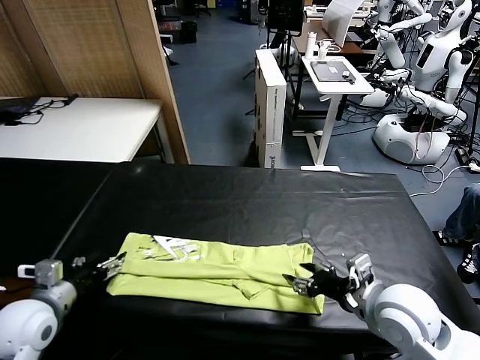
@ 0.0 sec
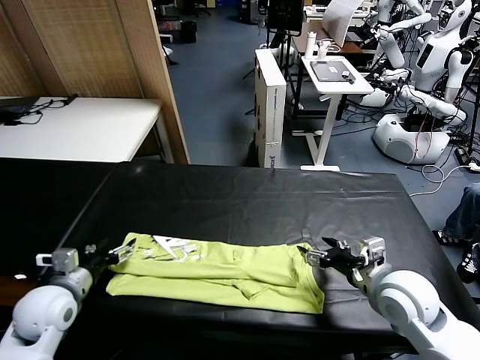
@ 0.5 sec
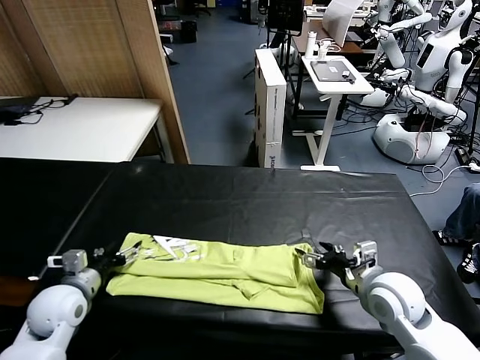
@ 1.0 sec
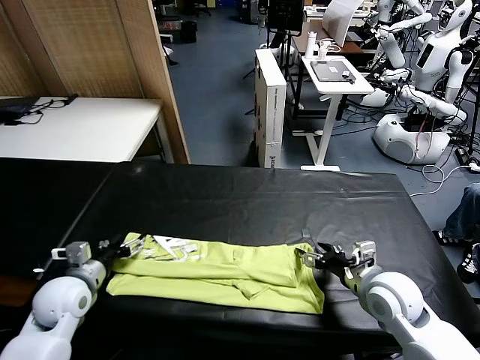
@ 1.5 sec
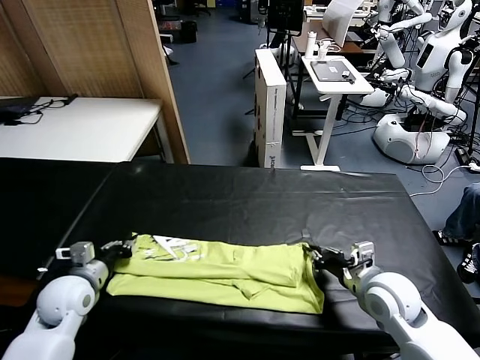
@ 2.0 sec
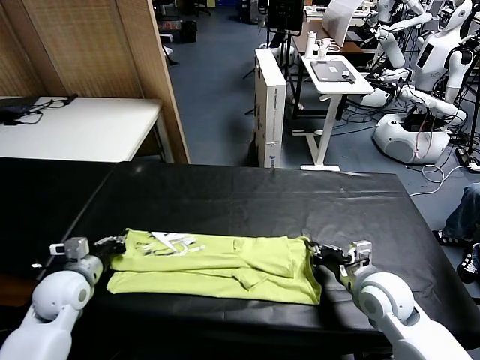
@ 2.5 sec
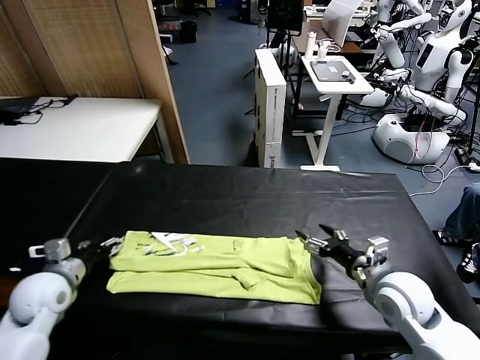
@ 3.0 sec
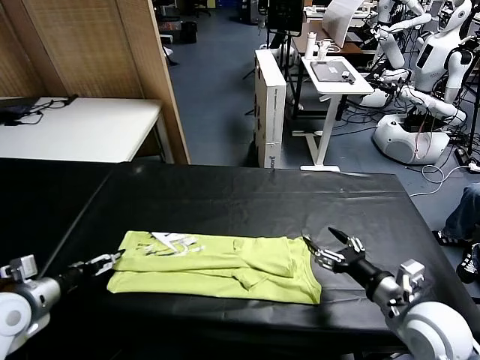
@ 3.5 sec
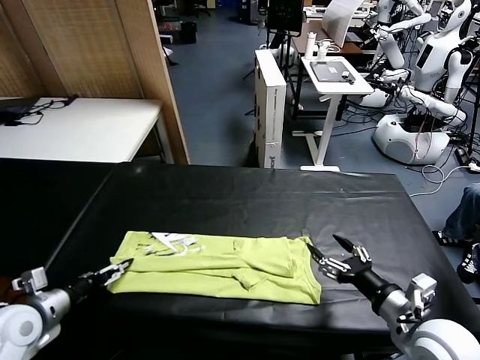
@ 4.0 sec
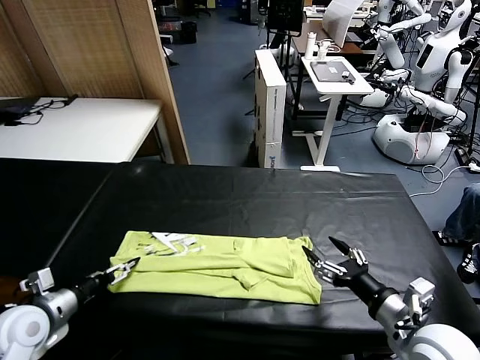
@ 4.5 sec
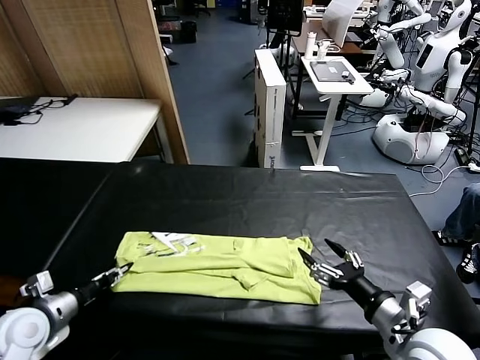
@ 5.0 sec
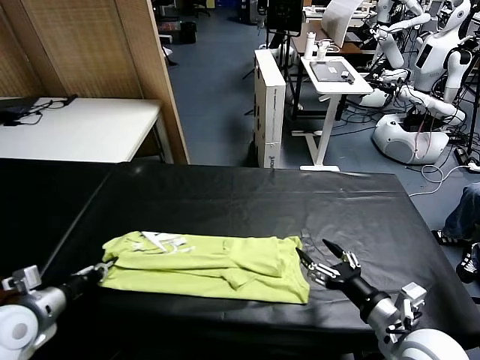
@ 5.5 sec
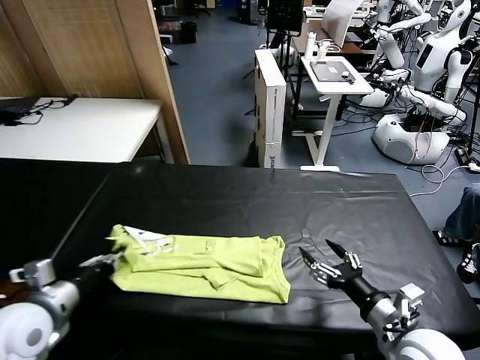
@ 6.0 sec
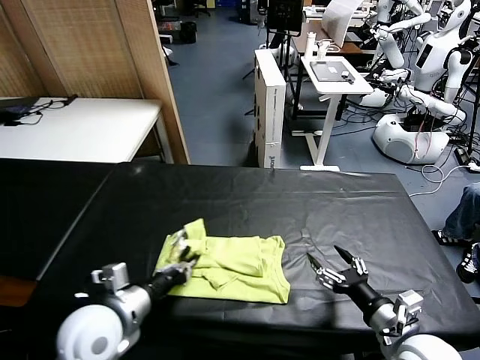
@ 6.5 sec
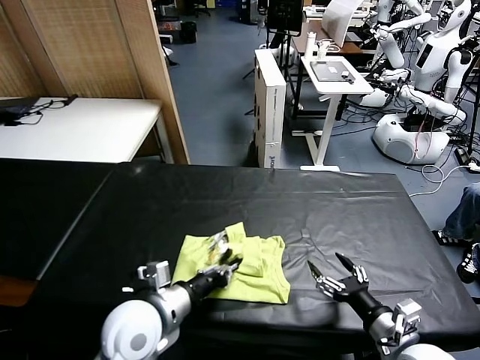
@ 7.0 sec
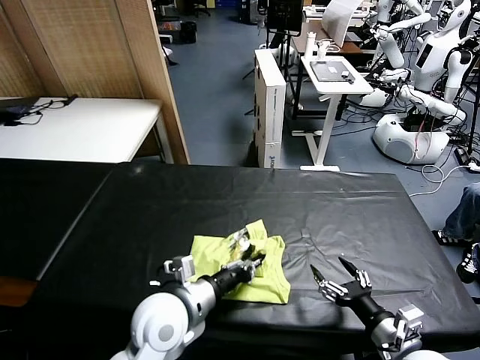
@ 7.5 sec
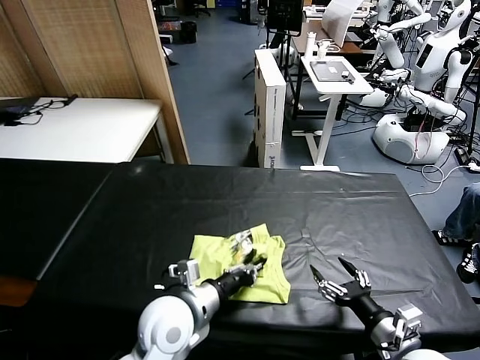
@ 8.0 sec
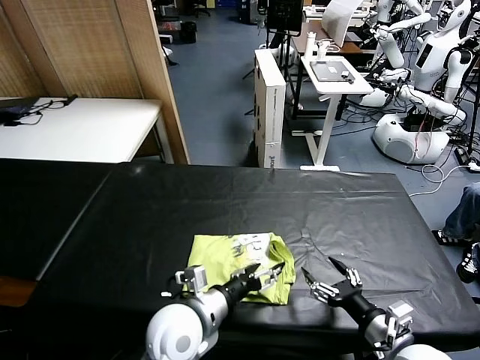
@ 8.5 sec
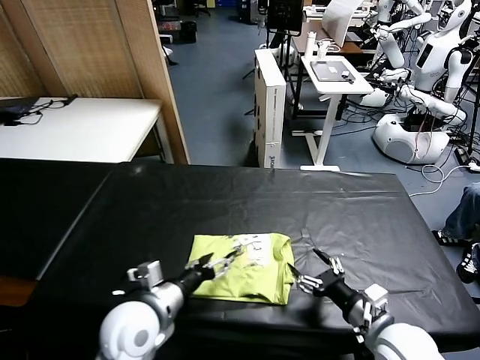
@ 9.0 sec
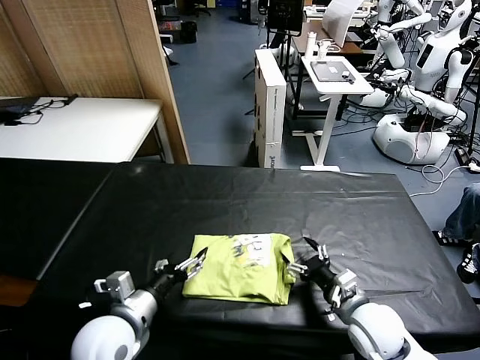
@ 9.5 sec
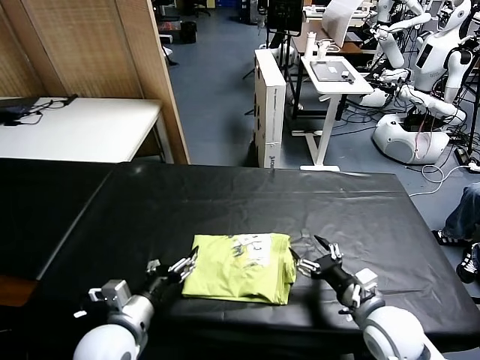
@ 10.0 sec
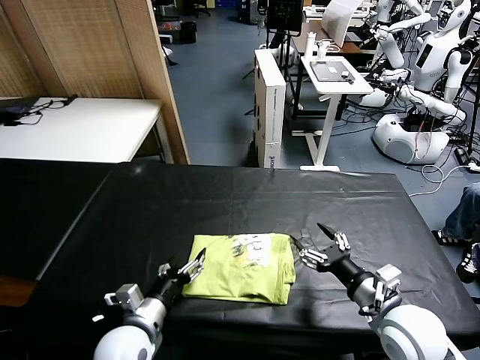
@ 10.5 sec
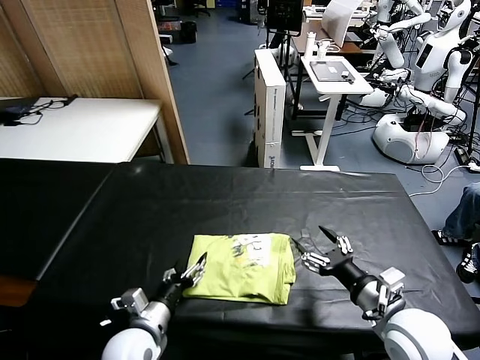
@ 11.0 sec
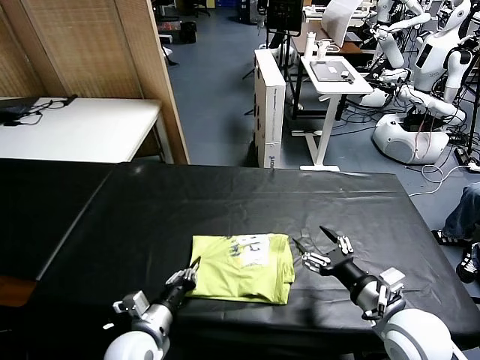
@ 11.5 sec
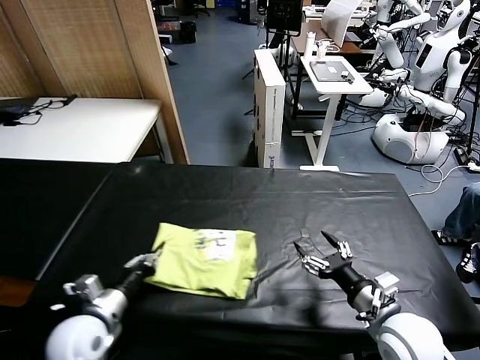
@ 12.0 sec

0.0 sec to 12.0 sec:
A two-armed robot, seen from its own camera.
Task of the whole recording: fold and organize the clothes.
Step, 0.5 sec to 5.0 sec: use the left gripper to clamp the left edge of the fabric.
Step, 5.5 sec to 8.5 sec: use the left gripper to drag the left edge of the fabric to the left and folds it over the right edge.
0.0 sec to 2.0 sec: The left gripper moves some 5 cm, and closes, while the right gripper is displaced downward by some 5 cm, and closes its fingers.
2.0 sec to 4.0 sec: The left gripper is displaced backward and to the left by about 10 cm, and opens, while the right gripper moves backward and upward, some 10 cm, and opens up.
4.0 sec to 6.0 sec: The left gripper goes roughly 15 cm to the right and upward, and closes its fingers.
6.0 sec to 8.0 sec: The left gripper goes some 20 cm to the right.
8.0 sec to 10.0 sec: The left gripper heads to the left, covering roughly 10 cm, and opens up. Meanwhile the right gripper goes some 5 cm forward.
10.0 sec to 12.0 sec: The left gripper heads to the left, covering about 15 cm, and closes up.

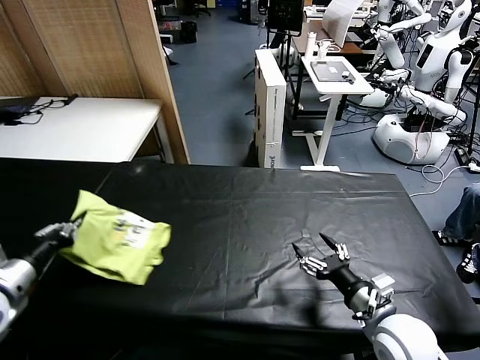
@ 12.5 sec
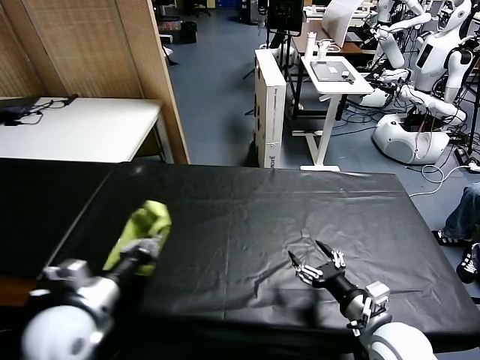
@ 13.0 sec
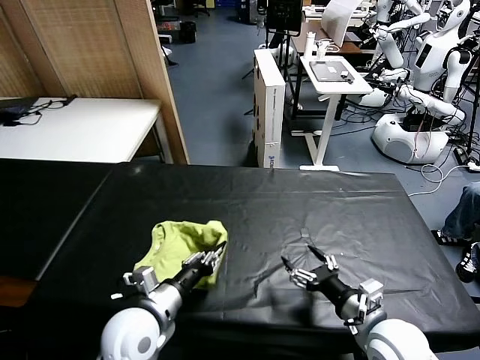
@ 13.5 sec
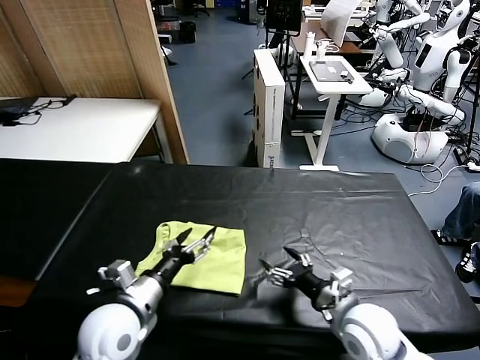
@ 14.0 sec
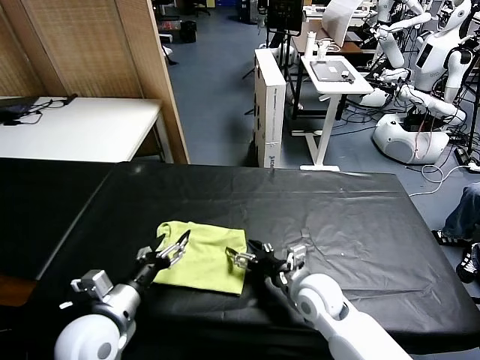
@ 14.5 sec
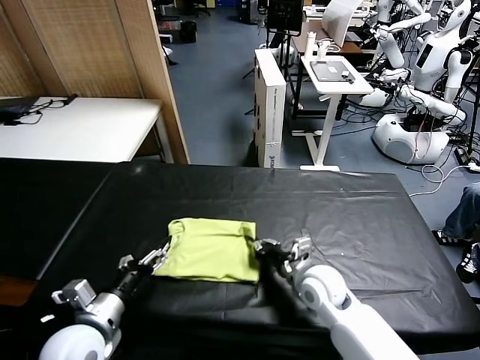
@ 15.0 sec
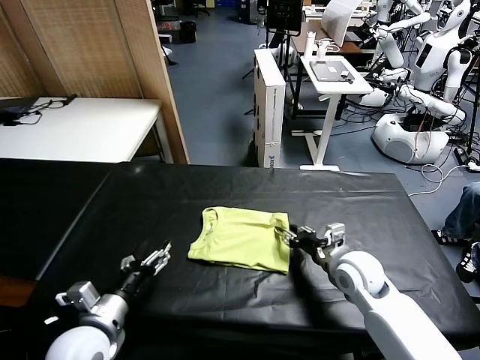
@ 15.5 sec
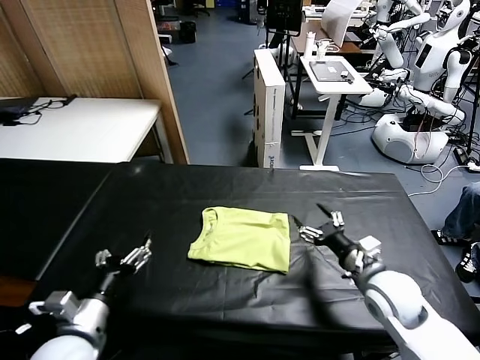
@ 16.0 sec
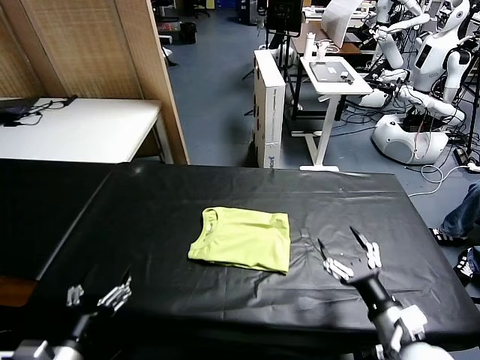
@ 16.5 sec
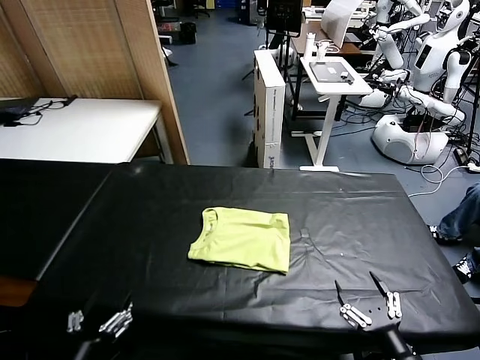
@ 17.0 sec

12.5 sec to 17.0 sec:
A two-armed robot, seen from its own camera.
Task of the whole recording: fold and organize the clothes.
Step, 14.0 sec to 15.5 sec: Drag the clothes to the center of the table.
12.5 sec to 14.5 sec: The right gripper travels to the left, forward and downward by roughly 20 cm; the left gripper is displaced to the right and downward by some 20 cm, and opens.
14.5 sec to 17.0 sec: The right gripper goes approximately 30 cm backward and to the right, and closes, then reopens; the left gripper goes approximately 15 cm backward.

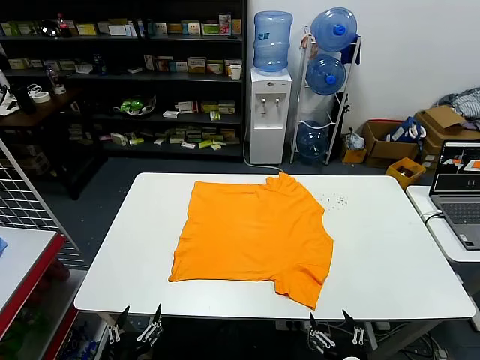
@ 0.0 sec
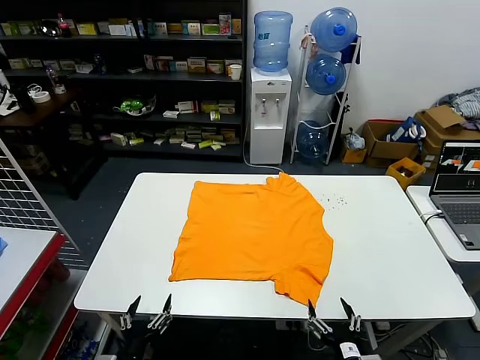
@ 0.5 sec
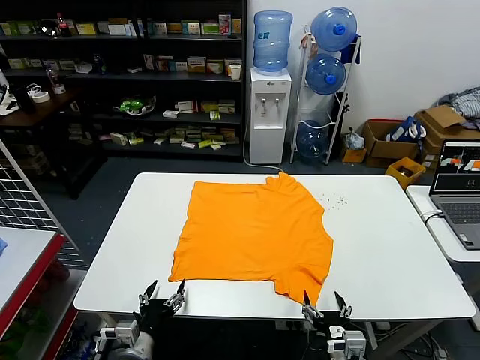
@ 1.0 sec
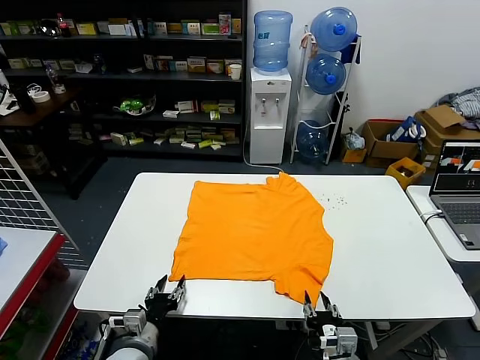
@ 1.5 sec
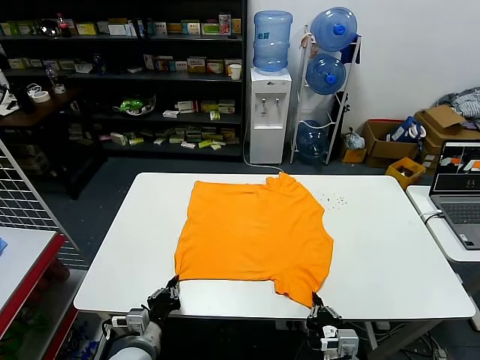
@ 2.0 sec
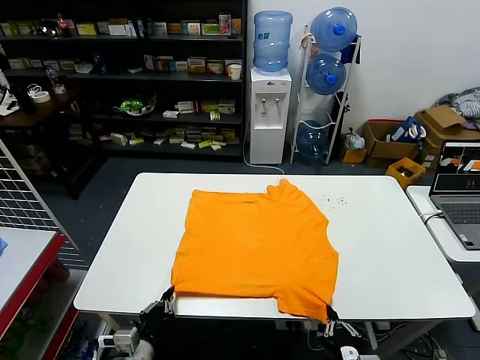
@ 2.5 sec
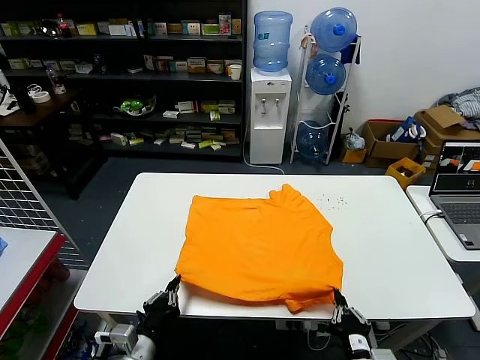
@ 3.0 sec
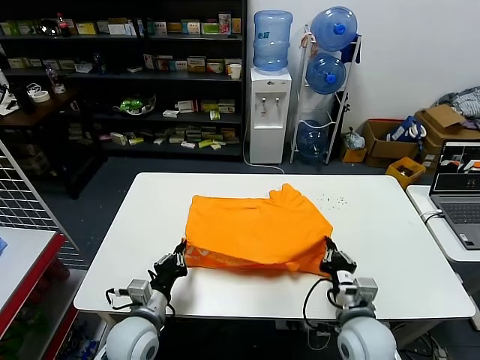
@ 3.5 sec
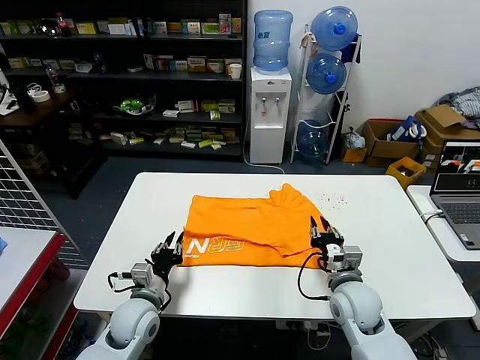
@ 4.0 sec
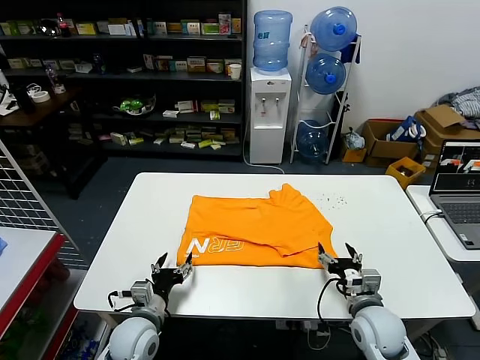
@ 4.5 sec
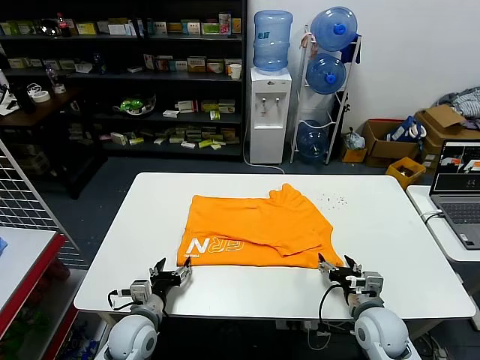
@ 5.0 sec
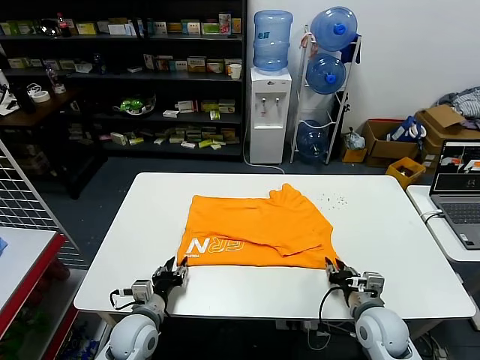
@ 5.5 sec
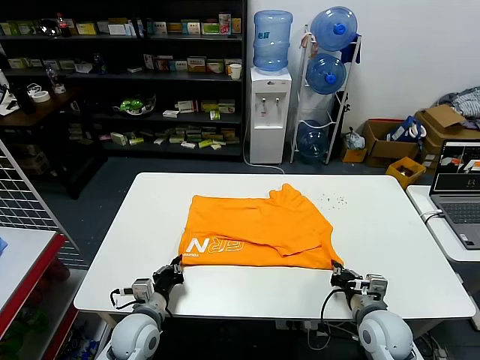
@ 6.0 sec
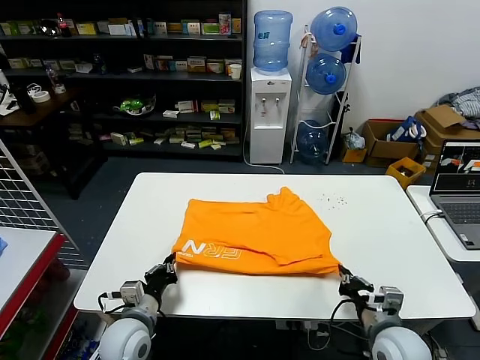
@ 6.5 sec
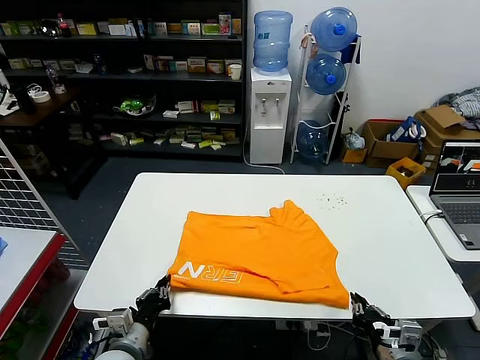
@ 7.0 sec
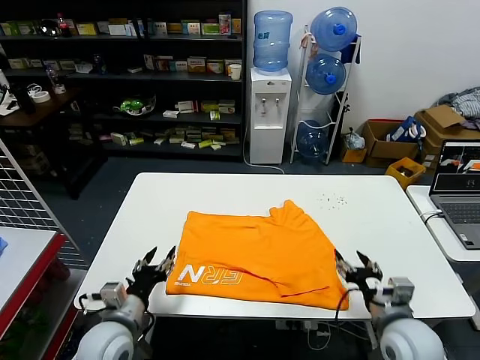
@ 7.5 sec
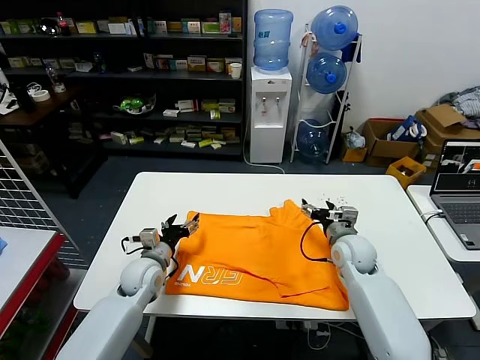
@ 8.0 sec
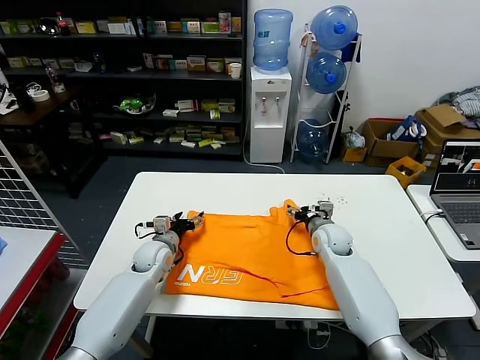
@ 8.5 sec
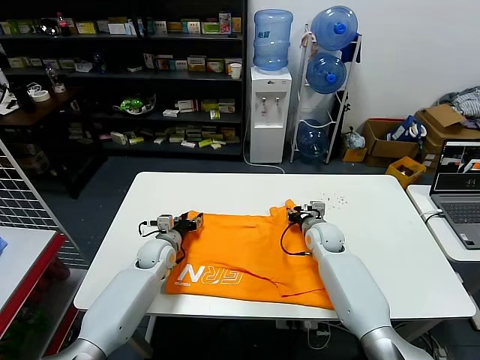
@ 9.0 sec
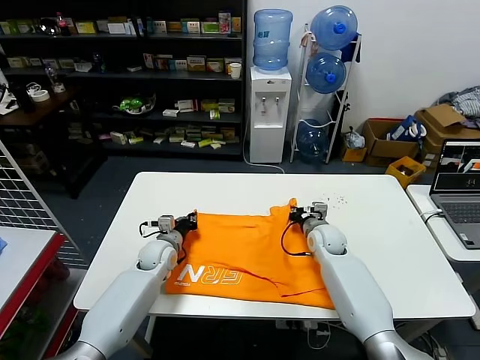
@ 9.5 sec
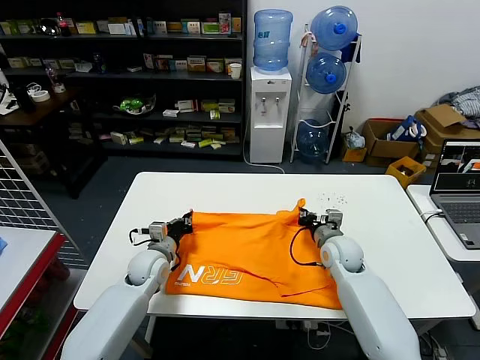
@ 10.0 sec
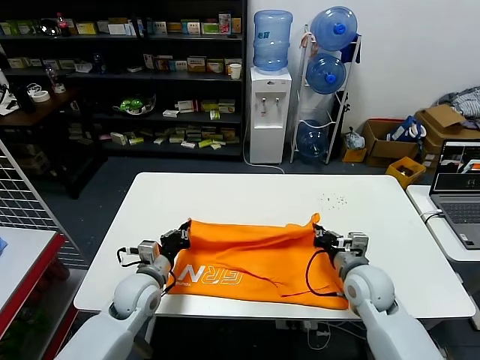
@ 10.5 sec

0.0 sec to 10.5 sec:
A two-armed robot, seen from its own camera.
Task of the whole recording: fold and organize the clothes.
Step, 0.0 sec to 2.0 sec: use both grippers simultaneously to clamp the lower edge of the clothing fabric.
Step, 2.5 sec to 4.0 sec: use both grippers to drag the lower edge of the fabric forward and fold it over the upper edge.
Step, 4.5 sec to 7.0 sec: Drag the clothes downward with both gripper.
Step, 7.5 sec to 9.5 sec: use both grippers simultaneously to clamp the upper edge of the clothing fabric.
2.0 sec to 4.0 sec: The left gripper travels forward by approximately 10 cm. Meanwhile the right gripper moves forward, approximately 15 cm, and opens up.
4.0 sec to 6.5 sec: The right gripper goes some 10 cm backward and to the right, and closes up; the left gripper closes up.
6.5 sec to 8.5 sec: The two grippers go some 25 cm forward. The right gripper opens its fingers. The left gripper opens up.
8.5 sec to 10.5 sec: Both grippers travel together backward, approximately 15 cm. The right gripper closes up. Meanwhile the left gripper closes.
